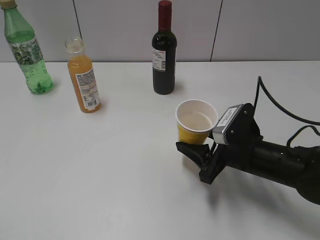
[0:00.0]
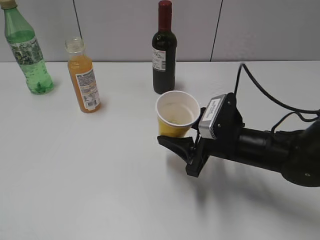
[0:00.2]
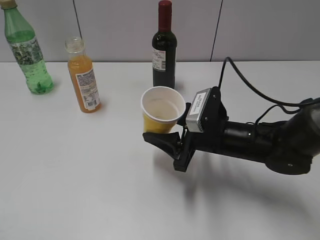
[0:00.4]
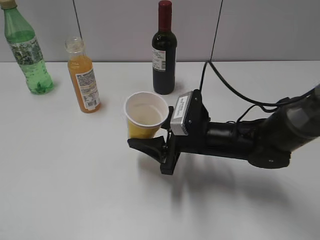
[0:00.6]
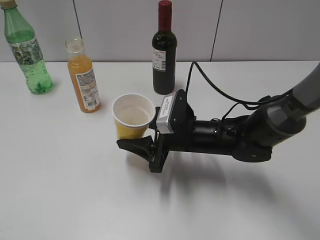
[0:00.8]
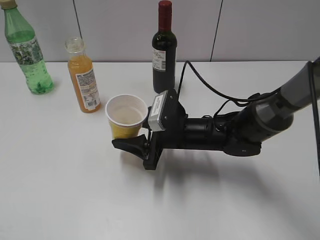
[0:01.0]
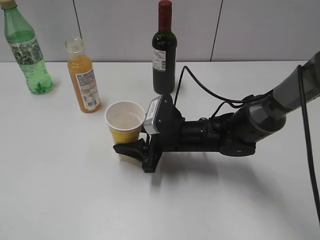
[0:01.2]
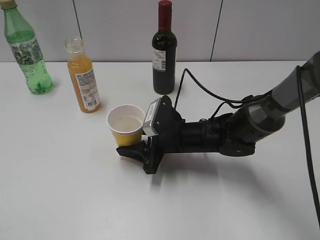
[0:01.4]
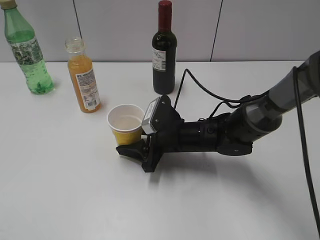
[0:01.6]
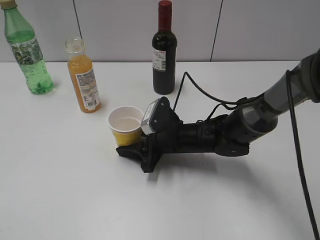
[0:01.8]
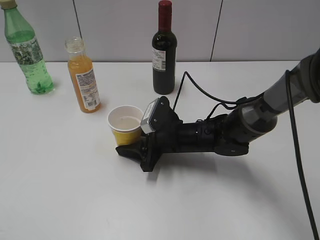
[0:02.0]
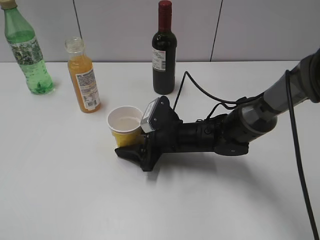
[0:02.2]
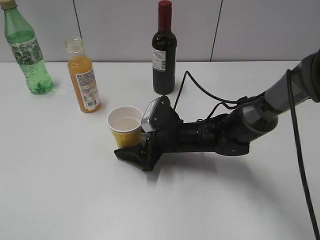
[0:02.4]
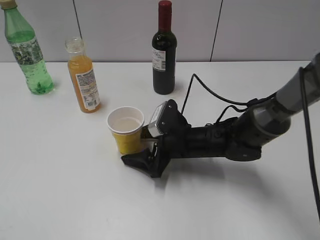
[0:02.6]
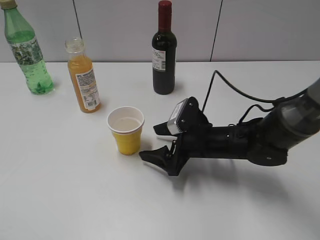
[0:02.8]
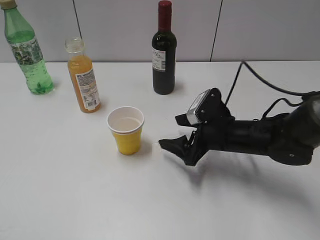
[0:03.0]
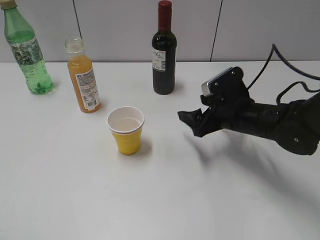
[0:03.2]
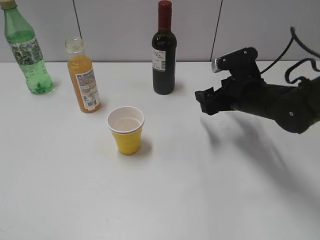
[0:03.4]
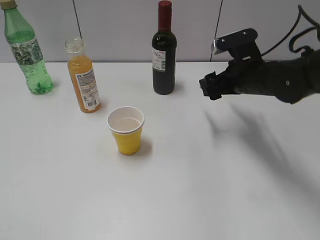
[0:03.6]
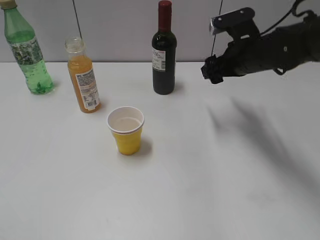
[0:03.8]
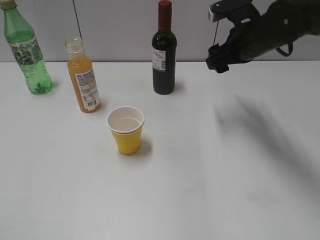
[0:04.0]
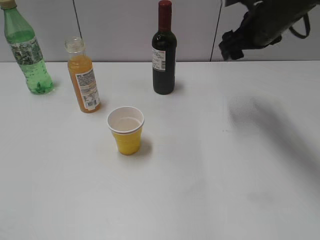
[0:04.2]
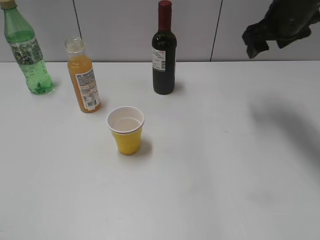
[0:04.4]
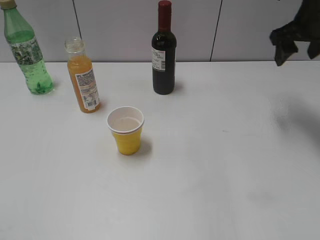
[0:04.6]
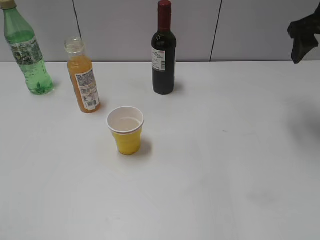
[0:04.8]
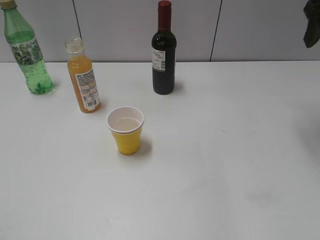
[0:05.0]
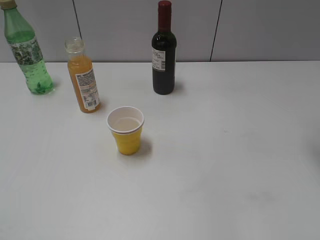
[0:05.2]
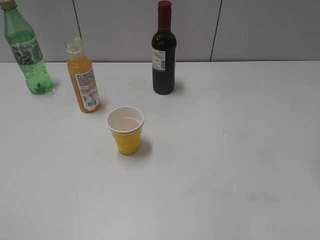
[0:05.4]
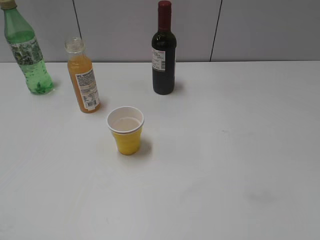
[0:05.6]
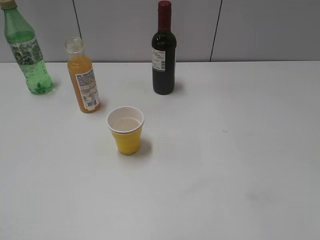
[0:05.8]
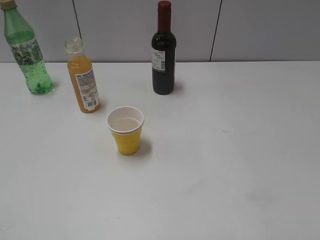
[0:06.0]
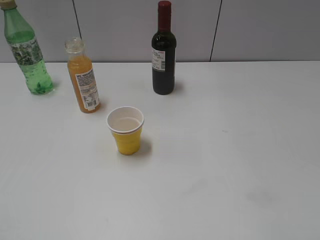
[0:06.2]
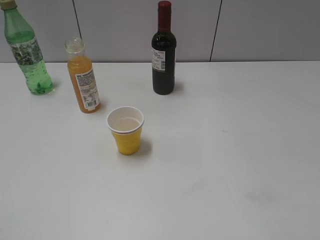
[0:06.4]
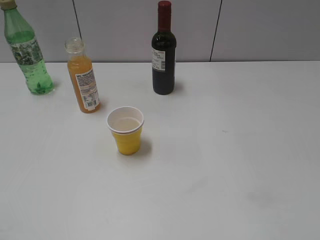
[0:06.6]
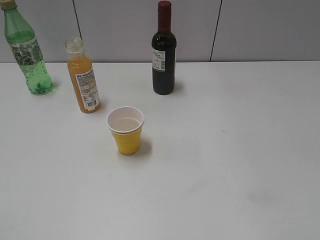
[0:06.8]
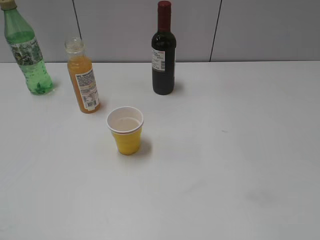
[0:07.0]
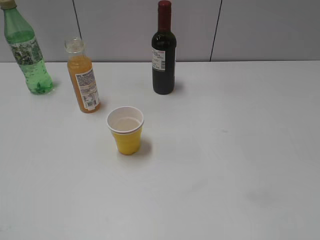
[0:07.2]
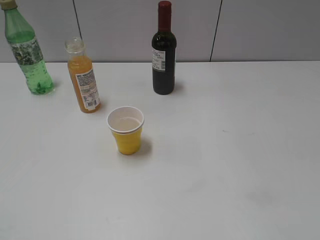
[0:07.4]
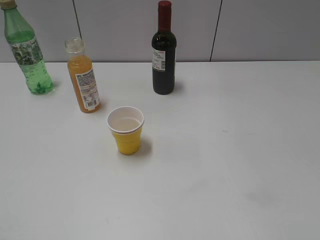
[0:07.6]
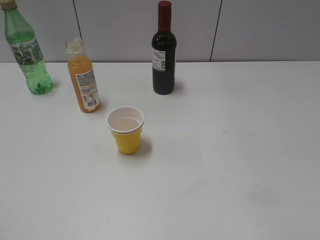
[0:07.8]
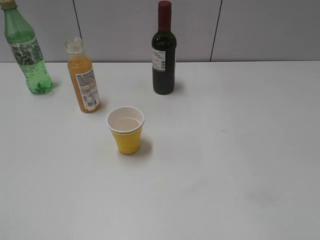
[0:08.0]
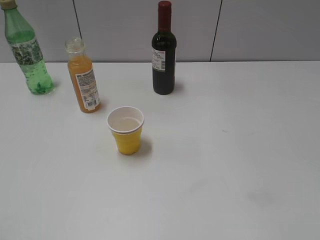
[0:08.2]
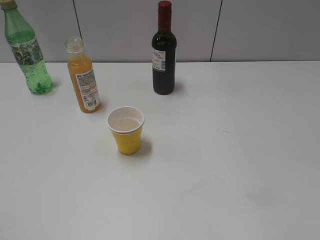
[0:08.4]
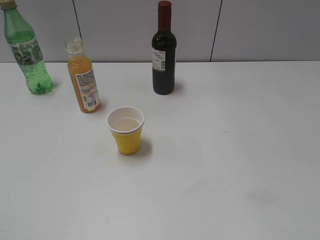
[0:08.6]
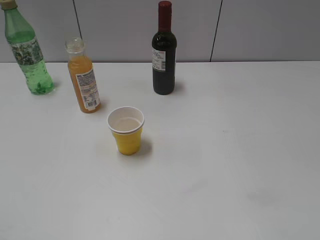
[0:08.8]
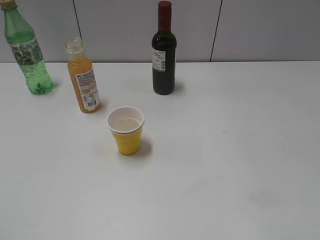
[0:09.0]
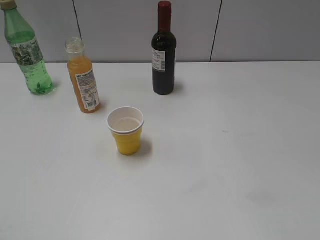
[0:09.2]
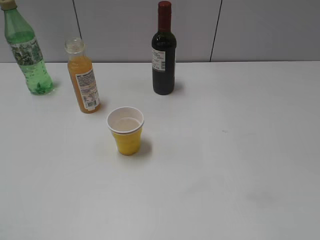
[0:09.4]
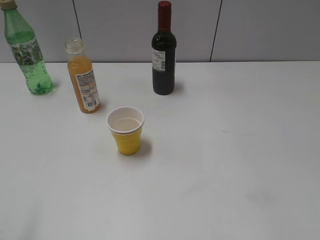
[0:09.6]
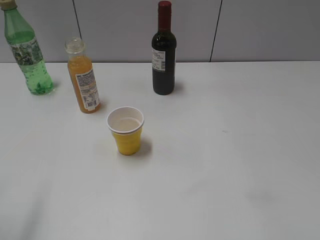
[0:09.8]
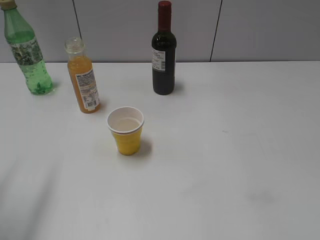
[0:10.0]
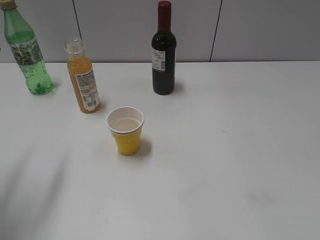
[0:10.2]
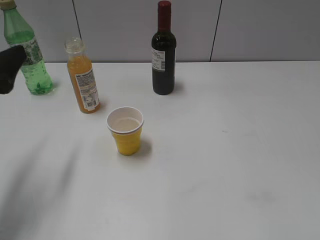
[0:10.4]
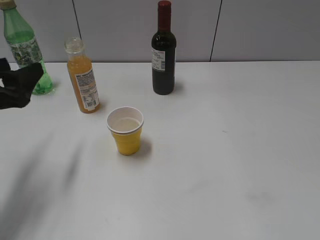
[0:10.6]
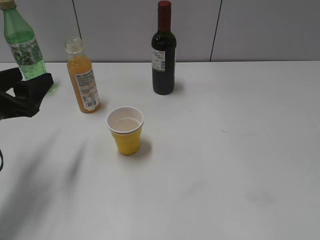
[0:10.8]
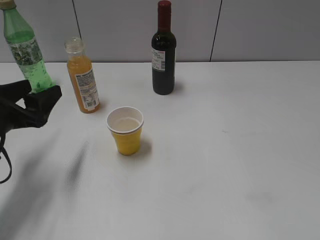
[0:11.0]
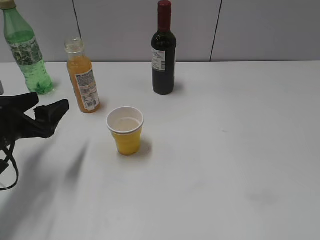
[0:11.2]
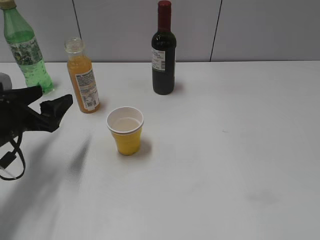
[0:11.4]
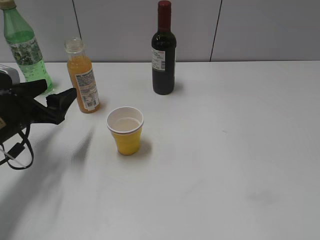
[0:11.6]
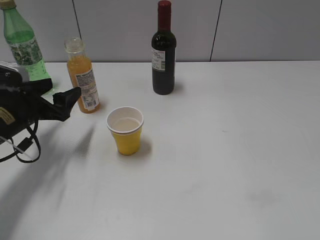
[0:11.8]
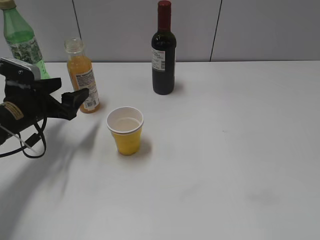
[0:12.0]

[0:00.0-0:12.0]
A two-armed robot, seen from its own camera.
Step, 0:00.0 to 0:02.6: Place the yellow paper cup on the table with right gripper.
0:00.0 to 0:01.6: The right gripper travels to the left and forward by approximately 15 cm.
0:01.6 to 0:03.0: The right gripper travels to the right by some 10 cm, and opens its fingers.
0:03.0 to 0:04.4: The right gripper shifts roughly 25 cm upward, forward and to the right.
0:04.4 to 0:06.0: The right gripper goes some 30 cm backward.
0:09.0 to 0:10.4: The left gripper travels forward by some 25 cm.
0:10.4 to 0:12.0: The left gripper is displaced downward and forward by roughly 15 cm.

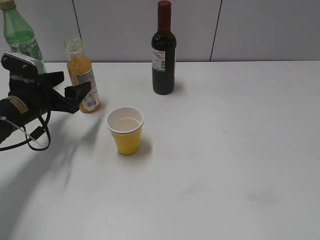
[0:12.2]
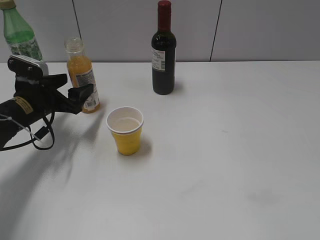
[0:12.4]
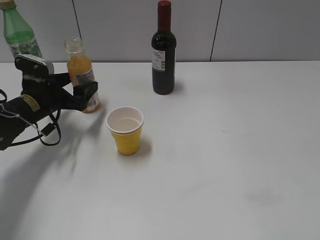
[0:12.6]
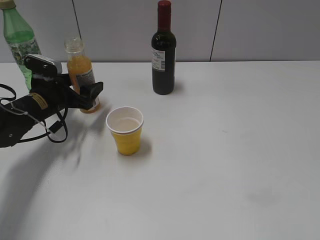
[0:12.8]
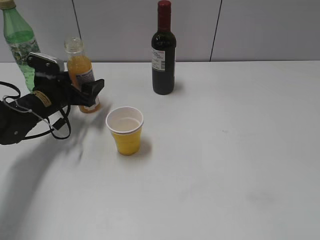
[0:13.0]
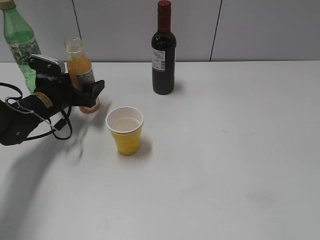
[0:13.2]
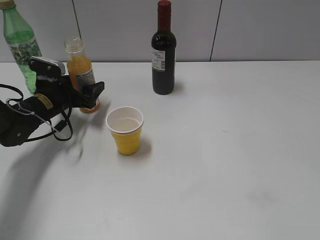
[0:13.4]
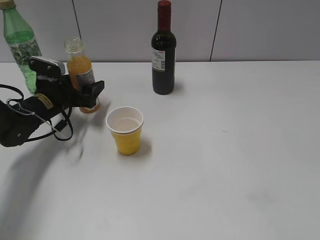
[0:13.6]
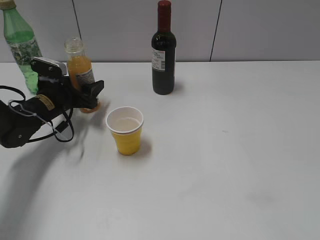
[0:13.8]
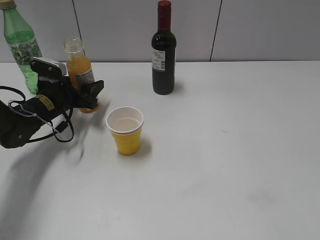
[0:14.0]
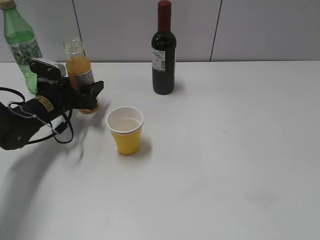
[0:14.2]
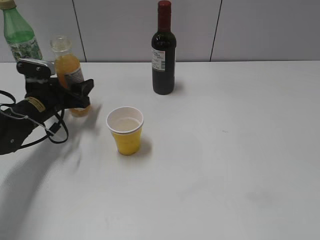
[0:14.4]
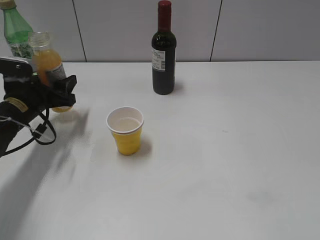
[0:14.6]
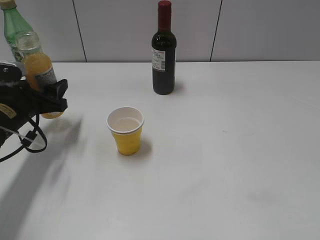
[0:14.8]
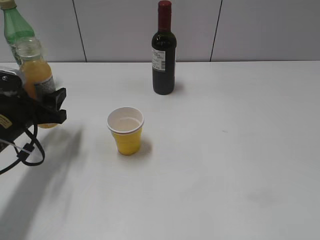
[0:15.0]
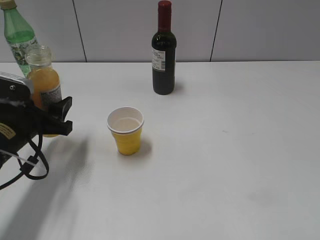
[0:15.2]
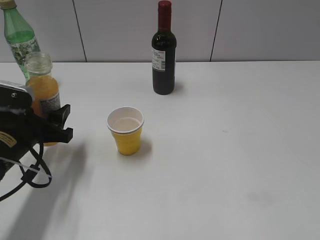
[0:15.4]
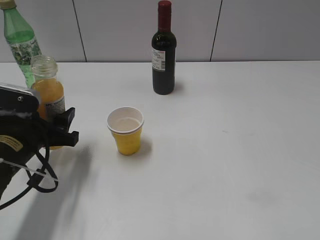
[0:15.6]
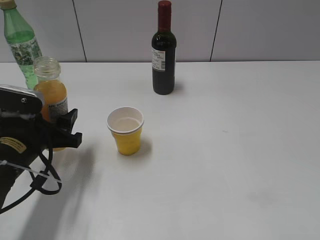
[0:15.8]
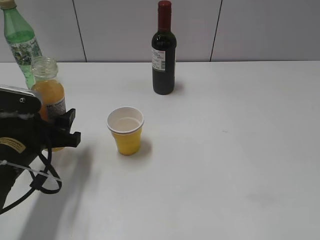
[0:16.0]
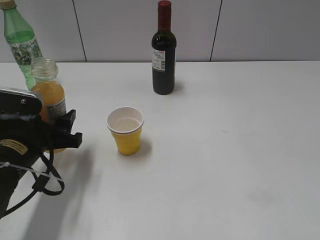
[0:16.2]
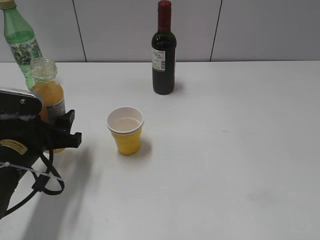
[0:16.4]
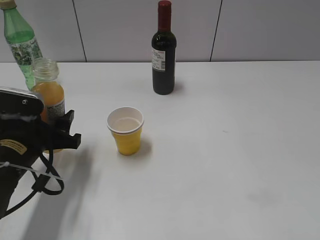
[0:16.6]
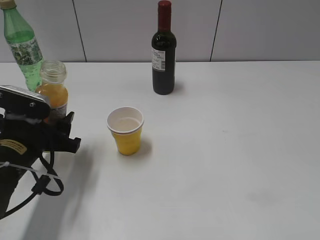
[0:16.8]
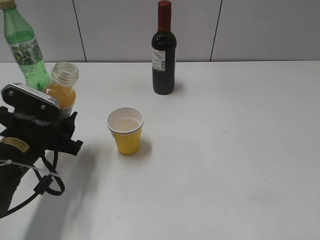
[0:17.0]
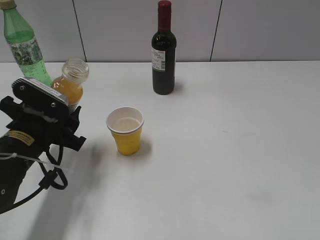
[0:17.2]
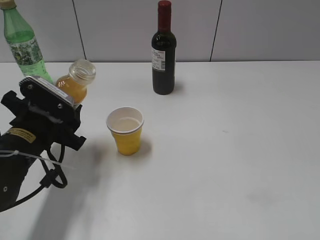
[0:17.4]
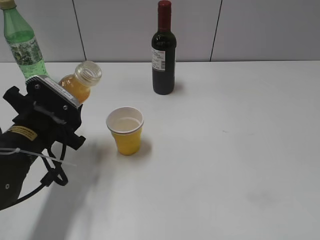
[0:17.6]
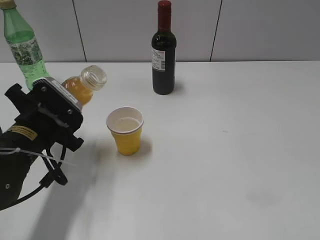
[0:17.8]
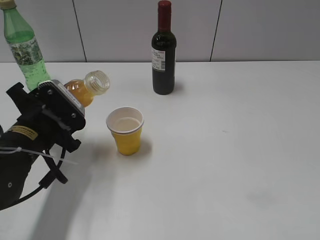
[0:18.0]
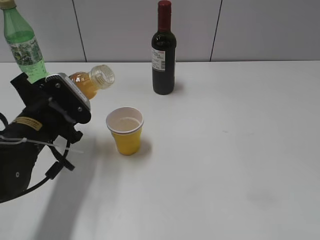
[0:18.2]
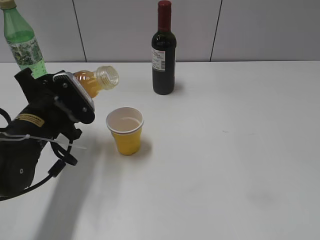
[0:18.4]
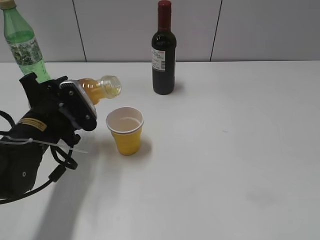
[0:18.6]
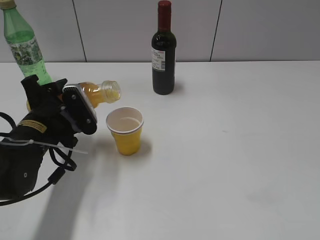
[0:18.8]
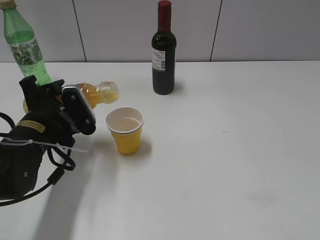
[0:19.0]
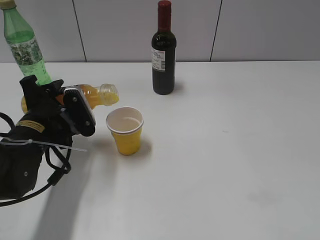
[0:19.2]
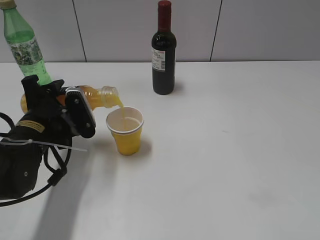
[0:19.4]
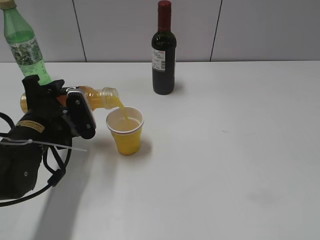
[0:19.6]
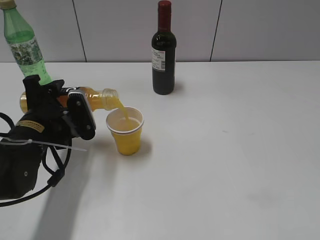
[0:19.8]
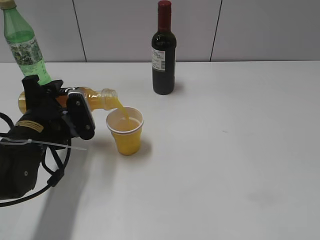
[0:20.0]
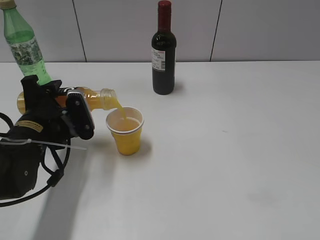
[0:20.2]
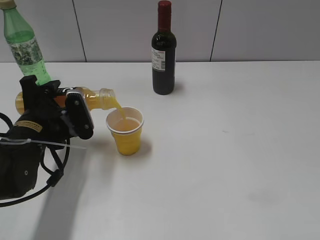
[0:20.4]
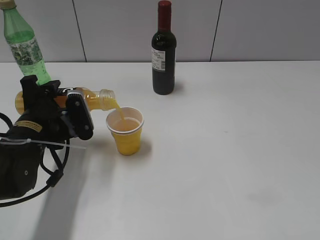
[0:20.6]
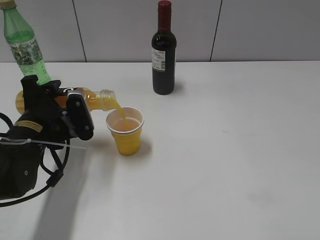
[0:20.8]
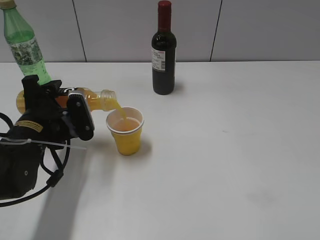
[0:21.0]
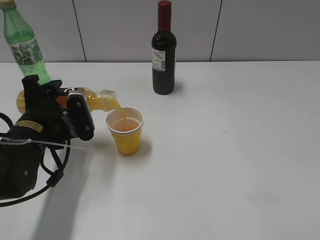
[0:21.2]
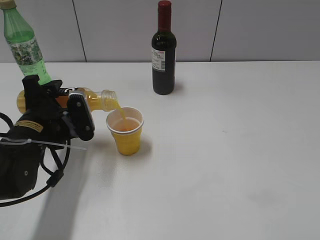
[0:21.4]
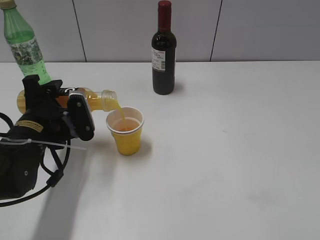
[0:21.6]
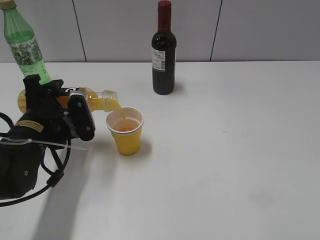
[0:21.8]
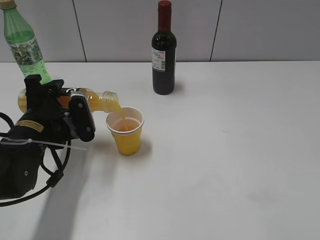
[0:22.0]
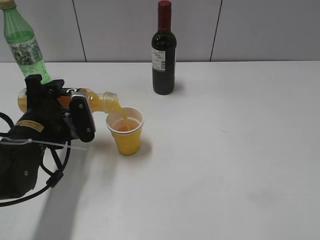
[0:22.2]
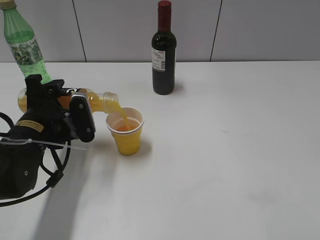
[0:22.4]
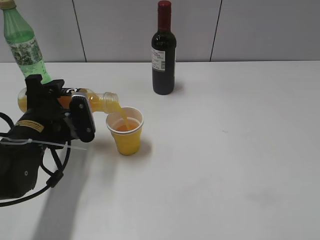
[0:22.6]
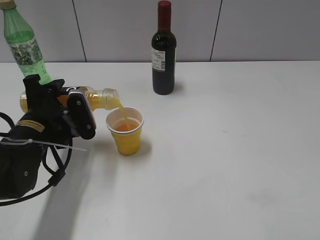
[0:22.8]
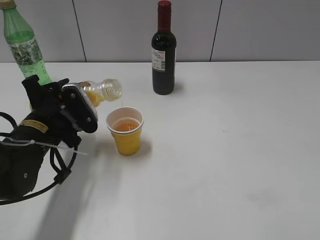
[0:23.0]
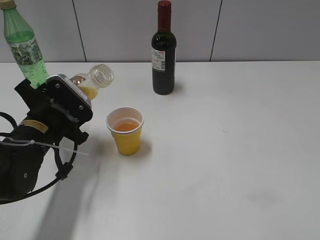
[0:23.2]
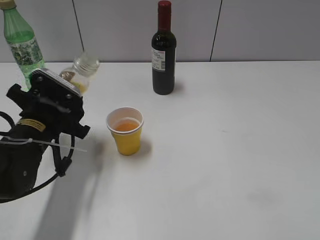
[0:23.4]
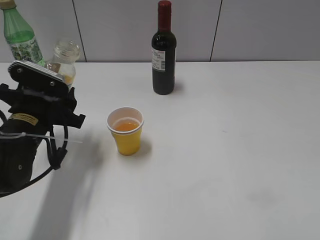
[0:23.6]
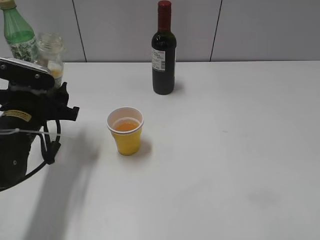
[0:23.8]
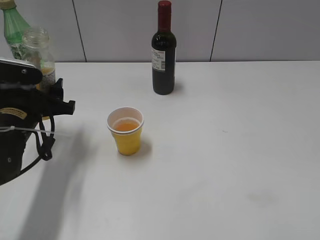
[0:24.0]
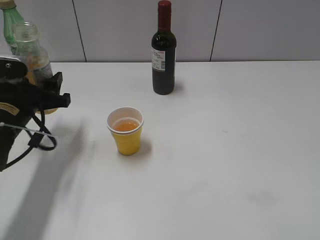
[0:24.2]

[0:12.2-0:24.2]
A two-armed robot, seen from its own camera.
Step, 0:14.4 to 0:23.0: Pour the orange juice from bottle to cup with left gripper.
0:12.2 to 0:13.8: The left gripper is displaced forward by some 5 cm, and closes up.
0:13.8 to 0:15.2: The left gripper goes about 15 cm backward.
0:15.2 to 0:16.6: The grippers move only a little.
0:19.8 to 0:22.6: Both grippers stay about where they are.
